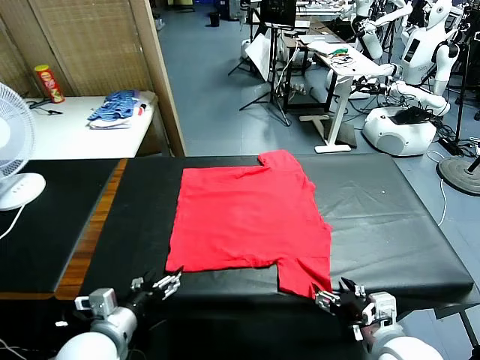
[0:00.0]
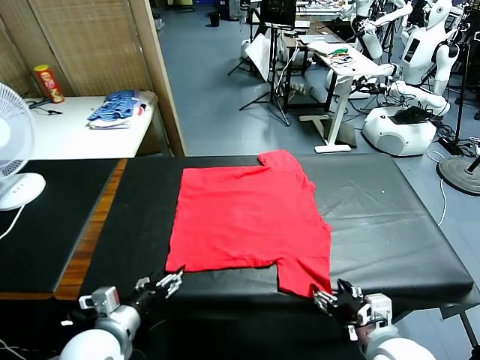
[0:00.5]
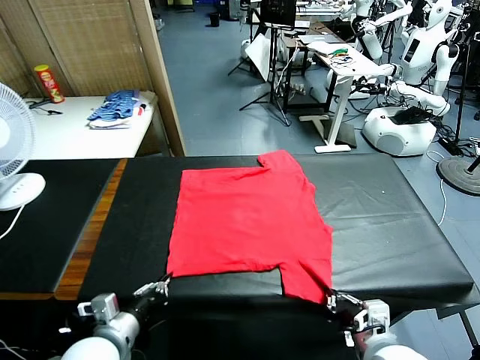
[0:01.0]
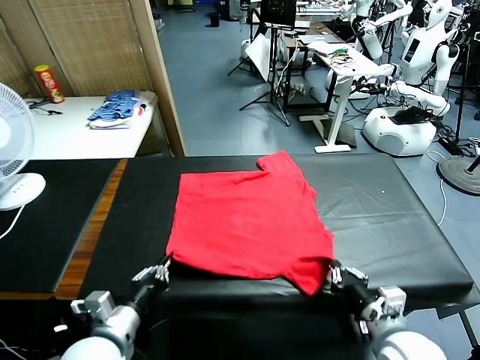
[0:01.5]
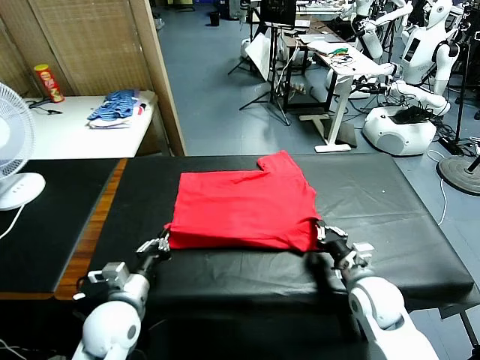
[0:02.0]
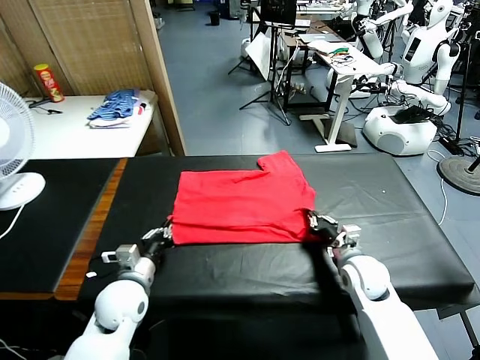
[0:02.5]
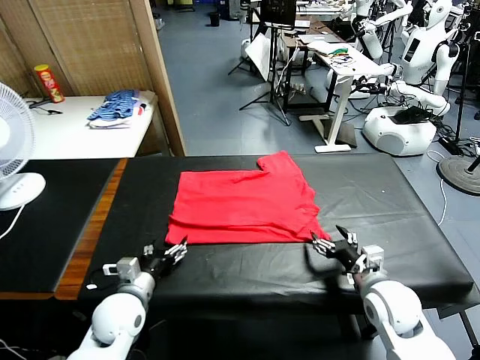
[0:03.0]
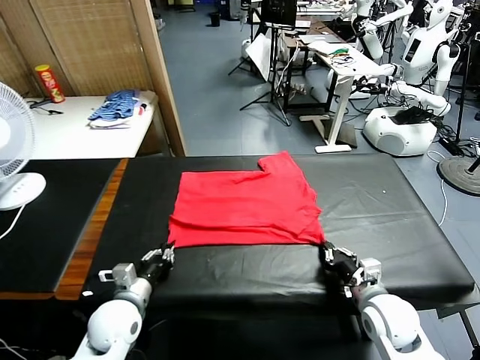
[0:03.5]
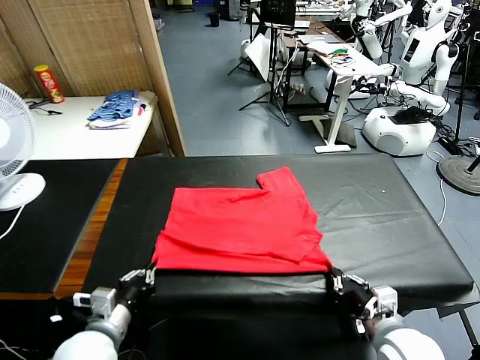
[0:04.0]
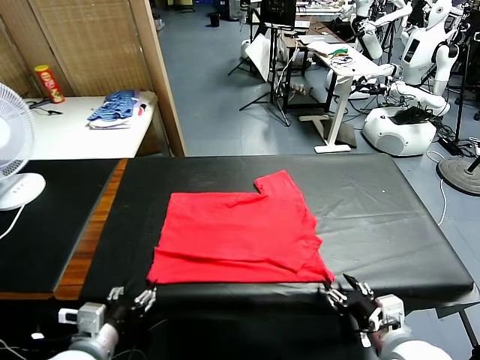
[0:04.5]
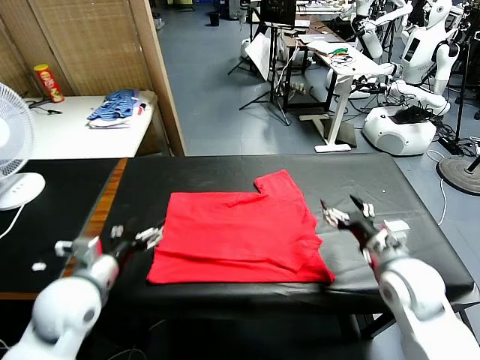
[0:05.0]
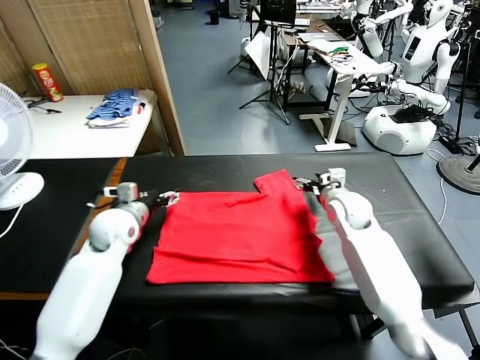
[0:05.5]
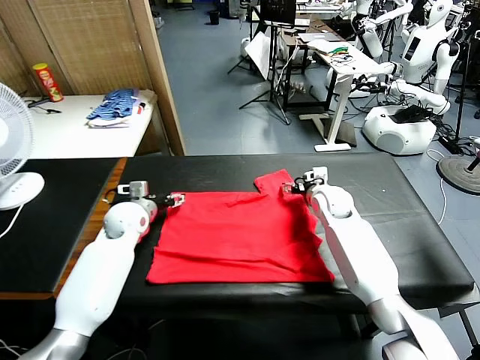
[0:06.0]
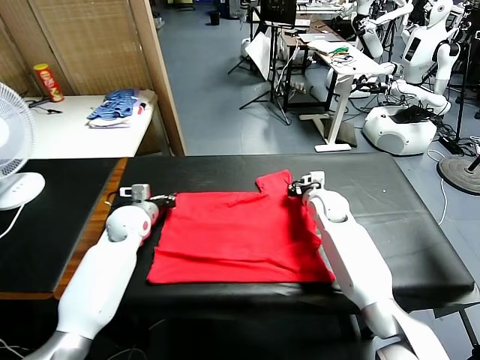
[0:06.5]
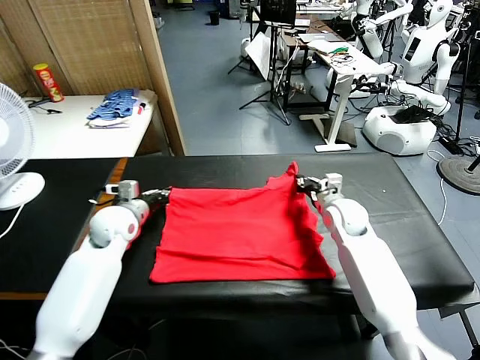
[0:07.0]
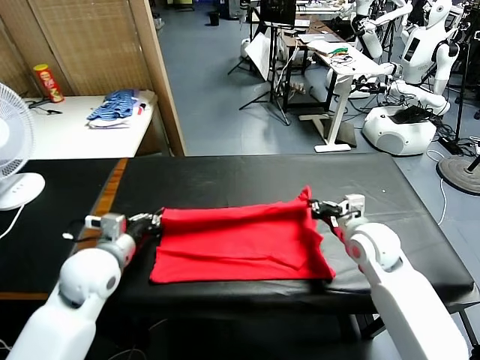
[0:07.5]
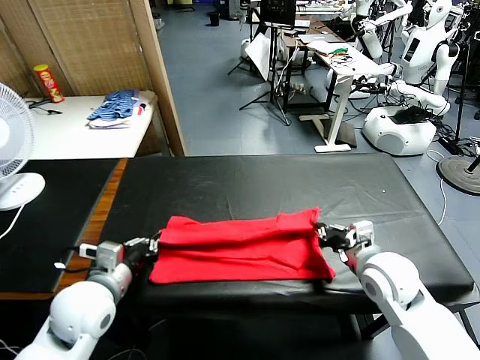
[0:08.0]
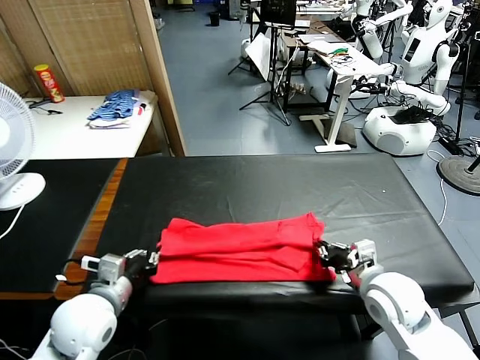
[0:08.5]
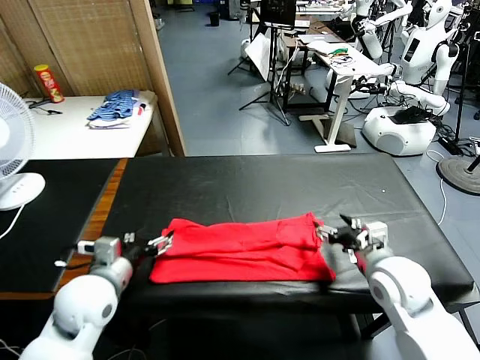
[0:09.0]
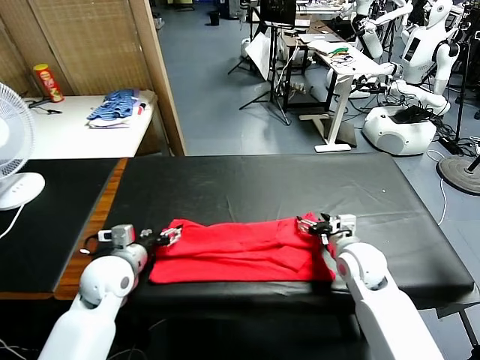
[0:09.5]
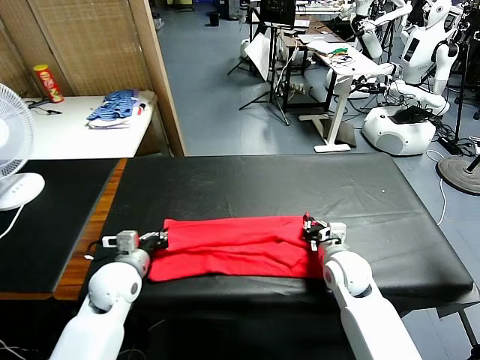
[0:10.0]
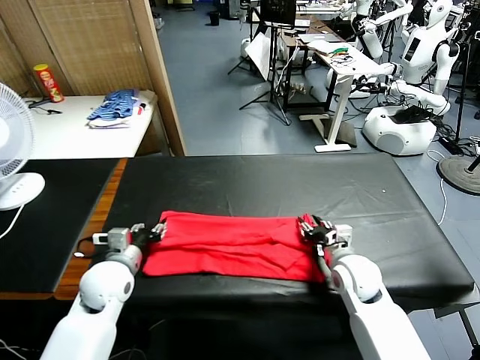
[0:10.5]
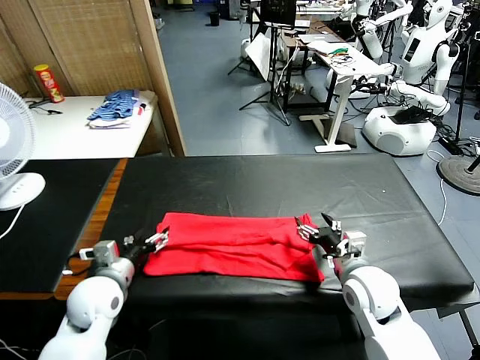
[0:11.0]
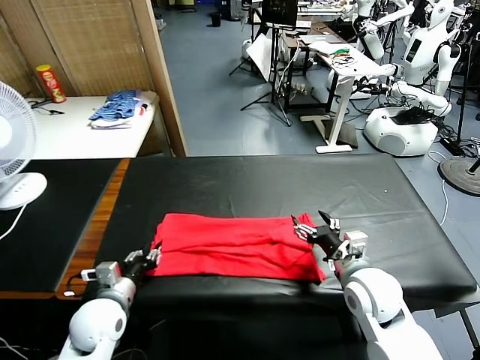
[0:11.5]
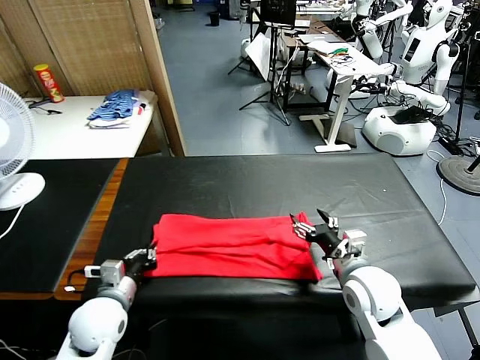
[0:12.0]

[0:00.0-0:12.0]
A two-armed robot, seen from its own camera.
Task of the whole recording: fold and organize the clothes.
Step, 0:00.0 to 0:00.5: use both grippers simultaneously to clamp the lower edge of the clothing fabric.
Step, 0:01.0 to 0:02.5: use both grippers to drag the lower edge of the fabric forward and fold it over the upper edge.
Step, 0:03.0 to 0:04.5: Drag the clothes downward with both gripper.
Step, 0:05.0 to 0:06.5: use both grippers simultaneously to clamp the upper edge of the clothing fabric.
Step, 0:07.0 to 0:08.5: use both grippers to drag the upper edge of the fabric backward and fold it over the lower edge.
Step, 0:09.5 to 0:11.5: use the left gripper to clamp the left edge of the fabric.
0:02.0 to 0:04.0: The right gripper is displaced backward by some 15 cm, and opens, then closes again. Meanwhile the left gripper goes some 10 cm backward, and opens, then closes once more.
0:04.0 to 0:06.0: The grippers both shift forward by roughly 35 cm. The right gripper opens its fingers. Meanwhile the left gripper opens up.
0:06.0 to 0:08.0: The two grippers go some 25 cm backward. The left gripper closes, while the right gripper closes its fingers.
0:08.0 to 0:10.0: The right gripper goes about 10 cm downward and forward, and opens and closes again; the left gripper travels forward and downward by about 10 cm, and opens and closes again.
0:10.0 to 0:12.0: The right gripper is displaced upward and backward by roughly 10 cm, and opens. The left gripper shifts some 5 cm backward, and opens, then closes once more.

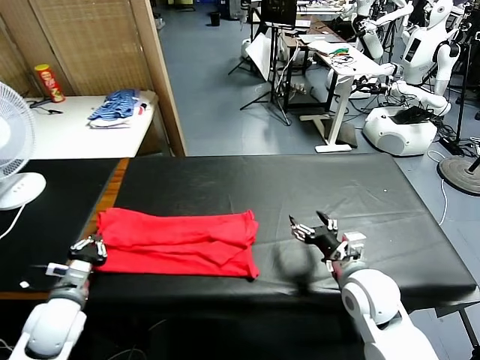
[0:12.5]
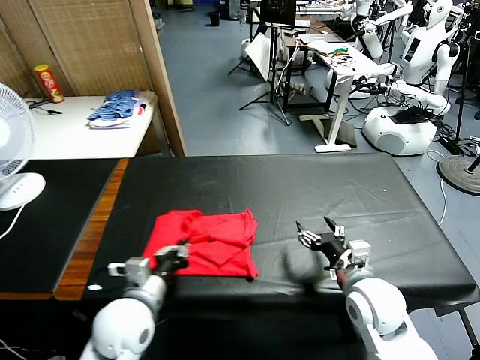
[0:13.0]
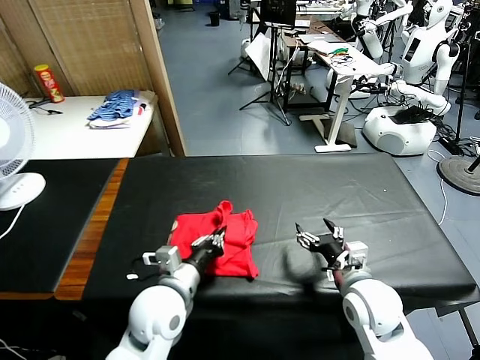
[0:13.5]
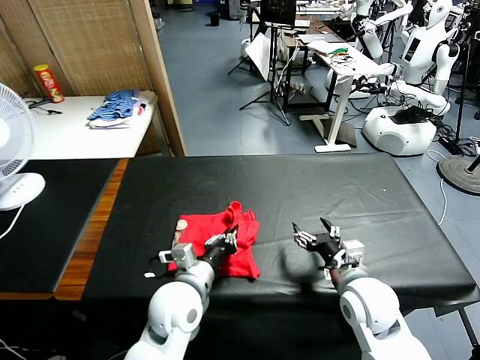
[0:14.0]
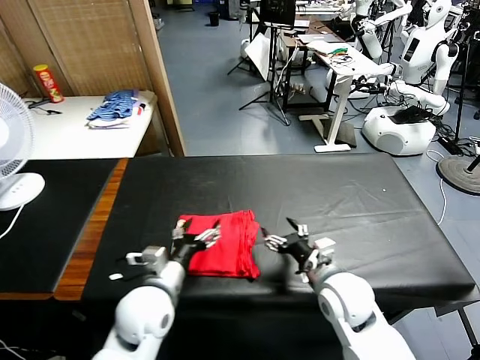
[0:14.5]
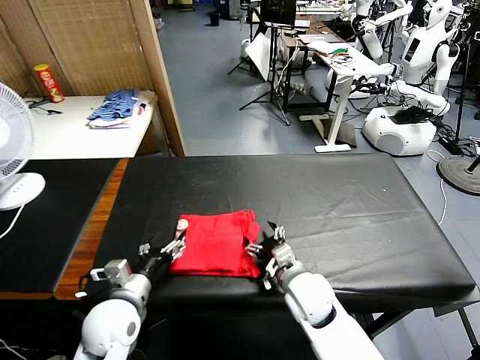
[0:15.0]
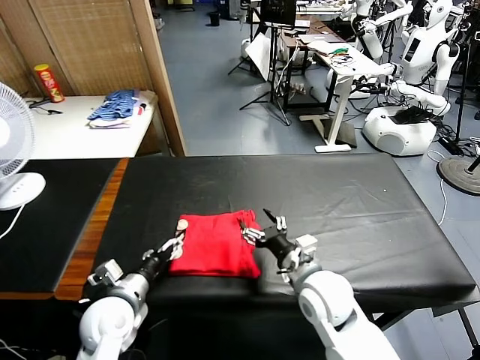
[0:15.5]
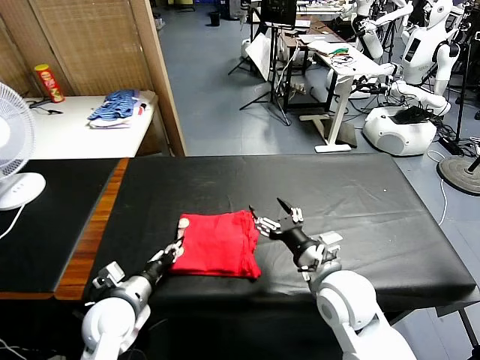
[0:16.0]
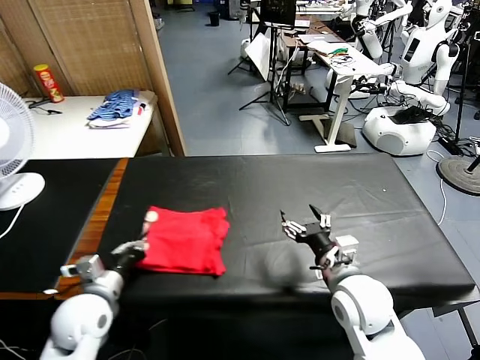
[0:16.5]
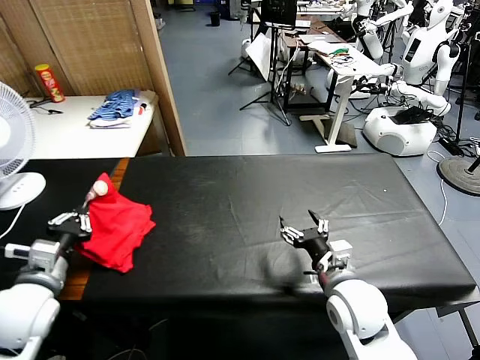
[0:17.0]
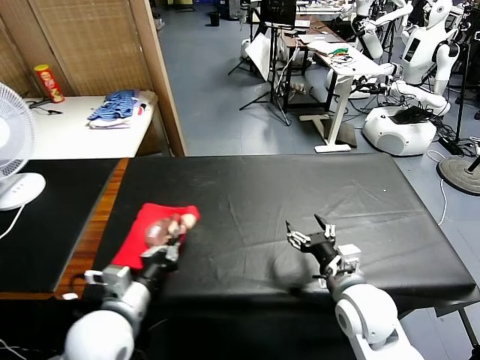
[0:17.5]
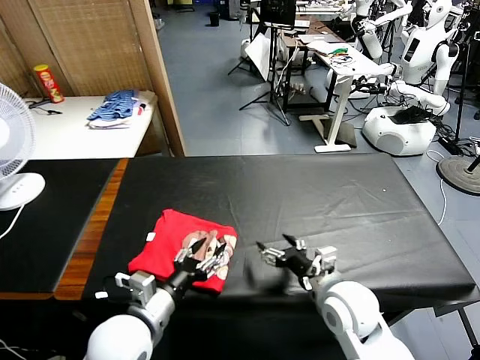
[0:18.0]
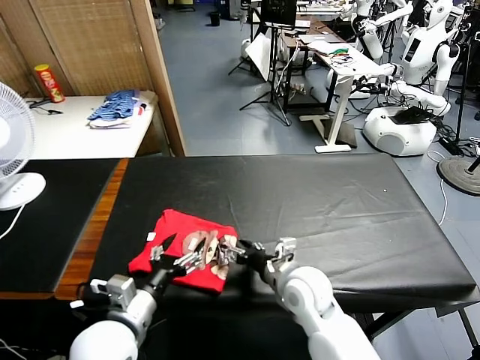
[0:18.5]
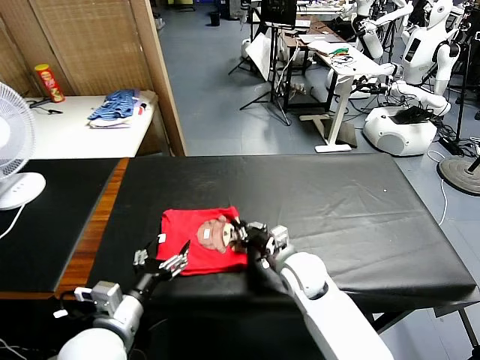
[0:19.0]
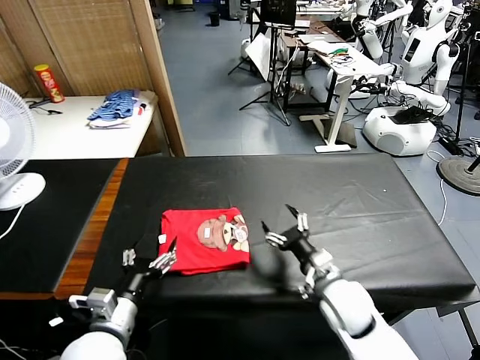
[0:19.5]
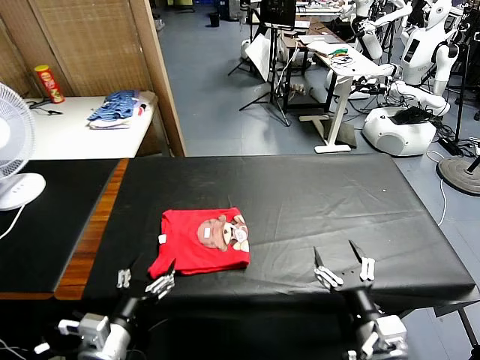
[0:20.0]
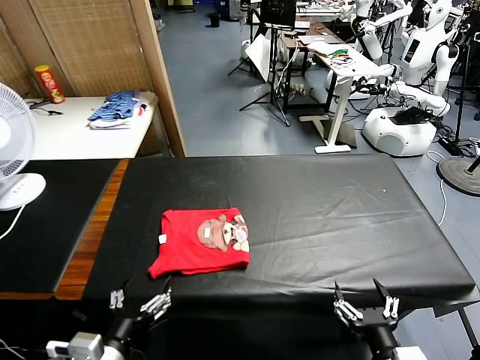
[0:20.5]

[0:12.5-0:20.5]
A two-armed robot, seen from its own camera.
Task of the whole recording: fold and organize the clothes.
Step, 0:12.5 to 0:14.0: use the left gripper to drag the left edge of the fabric to the left and folds it over the right edge.
Step, 0:14.5 to 0:18.0: Flip the folded clothes over with left gripper.
Step, 0:18.5 to 0:19.0: Drag the clothes to the center of the table.
0:12.5 to 0:14.5: The left gripper travels to the right by some 20 cm, and opens up.
0:14.5 to 0:16.5: The left gripper goes approximately 15 cm to the left, and closes.
0:16.5 to 0:18.5: The right gripper heads to the left, covering some 10 cm. Meanwhile the left gripper shifts approximately 10 cm to the right and backward, and opens up.
0:18.5 to 0:20.5: The right gripper is displaced backward and to the right by approximately 25 cm, and closes and opens again; the left gripper heads backward, covering some 10 cm.
